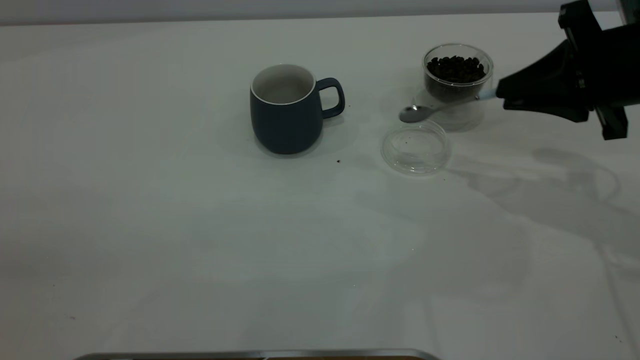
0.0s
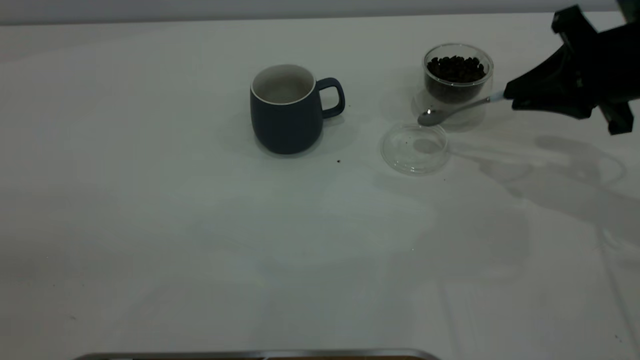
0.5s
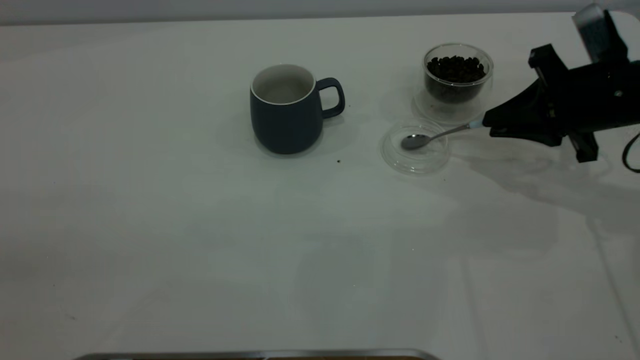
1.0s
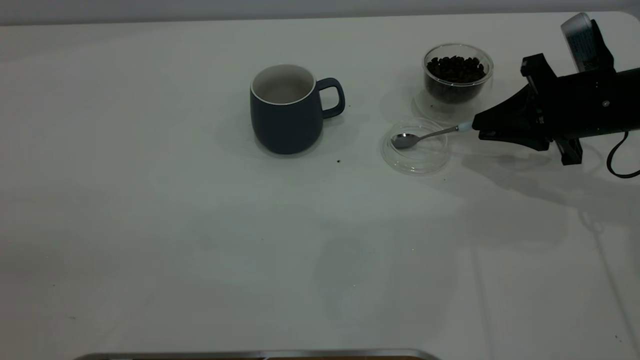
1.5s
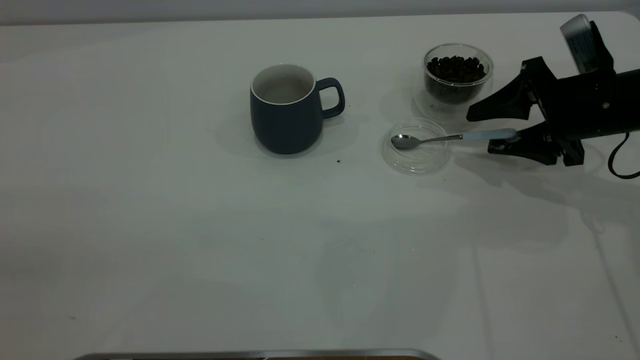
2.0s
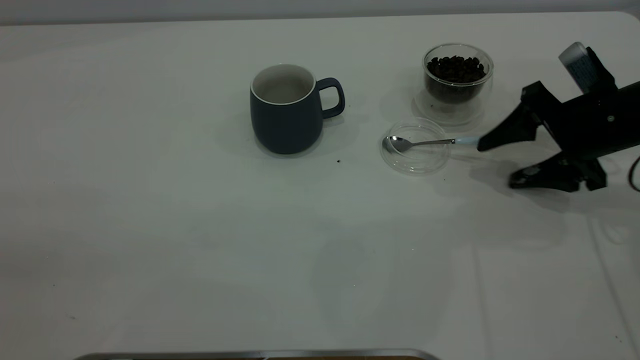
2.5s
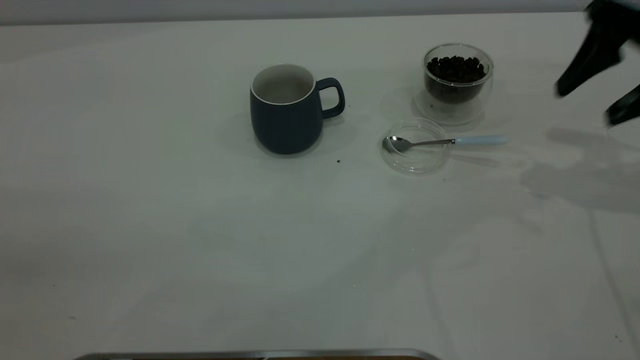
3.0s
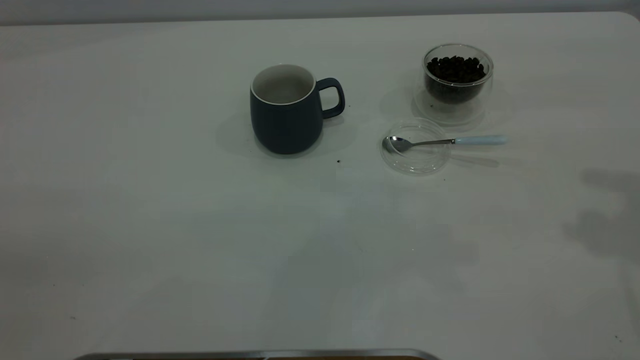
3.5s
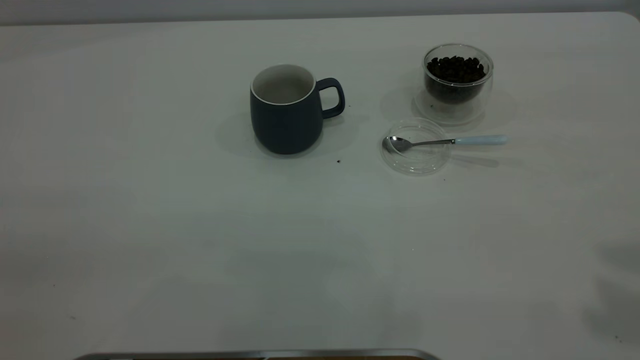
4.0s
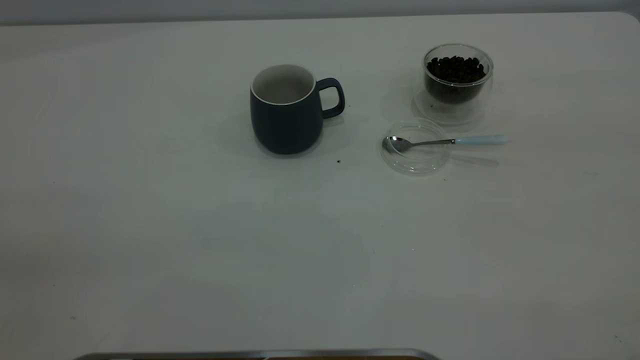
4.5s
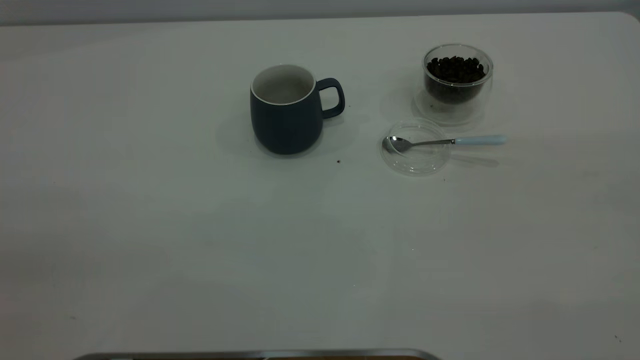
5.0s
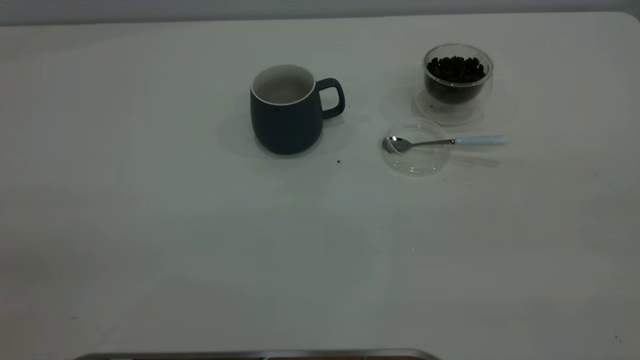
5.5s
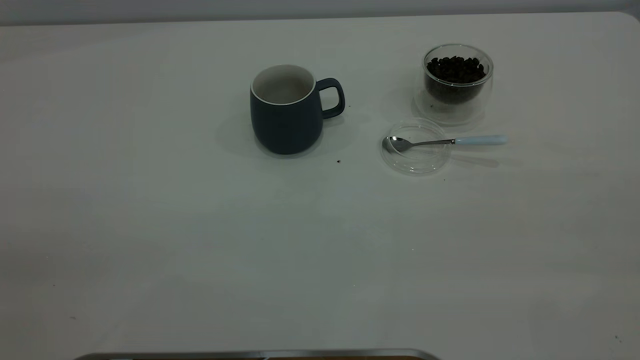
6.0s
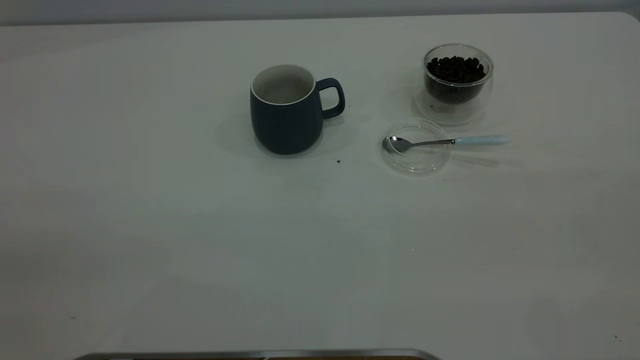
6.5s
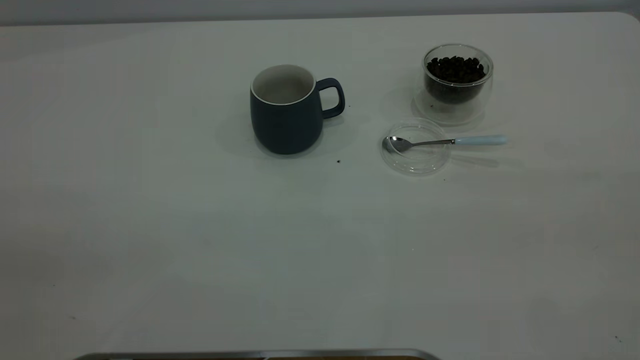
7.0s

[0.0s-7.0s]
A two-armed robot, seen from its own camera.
Task of the whole recording: the left gripper place the grey cup in the center of the table, the right gripper take the blue spoon from the cup lid and scoop out the coffee beans from the coffee cup and put them into the grey cup, the right gripper put the spoon back into the cup lid.
Step, 0.0s to 2.5s: Place the spoon back in its original place.
0.0s to 2.0s: The right gripper is displaced downward by roughly 10 cm, and opens.
2.0s to 3.5s: The right gripper goes approximately 30 cm upward.

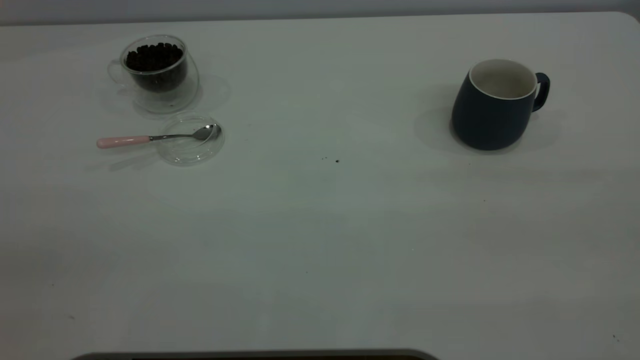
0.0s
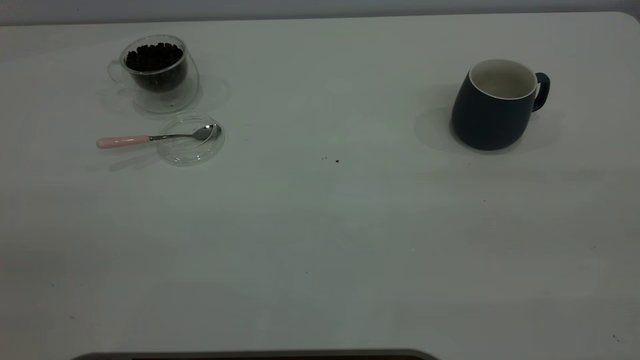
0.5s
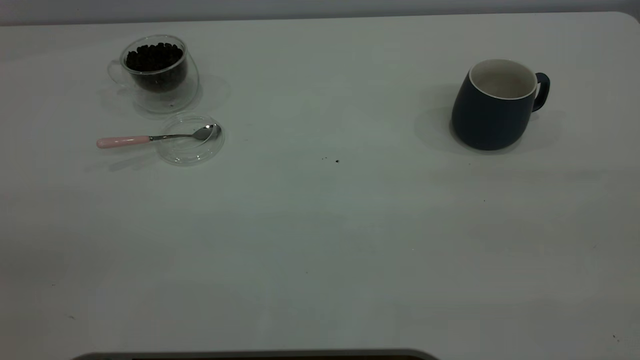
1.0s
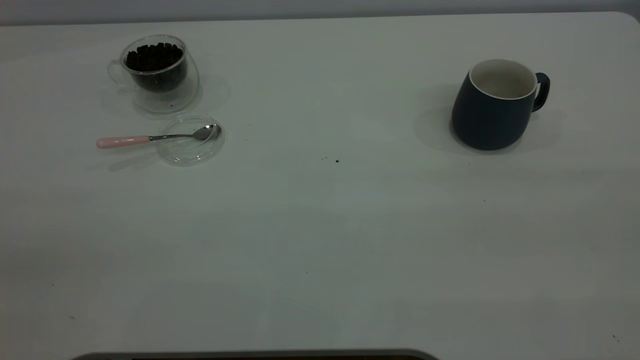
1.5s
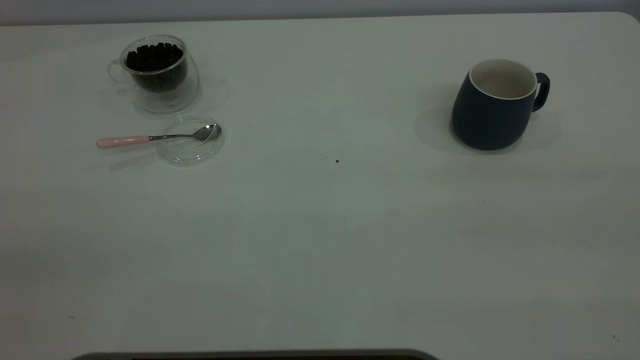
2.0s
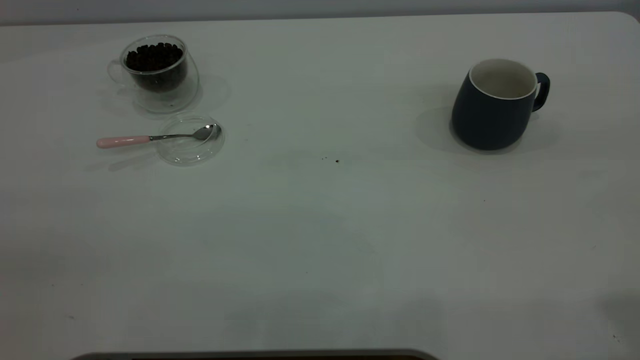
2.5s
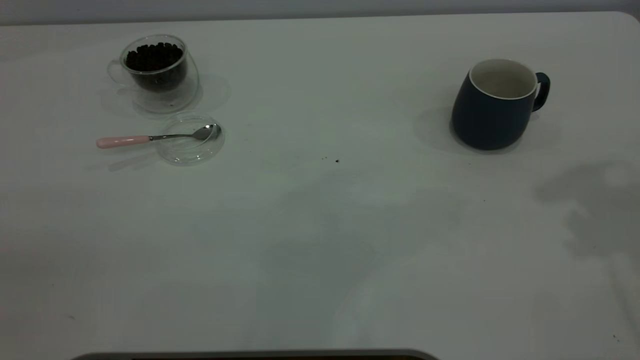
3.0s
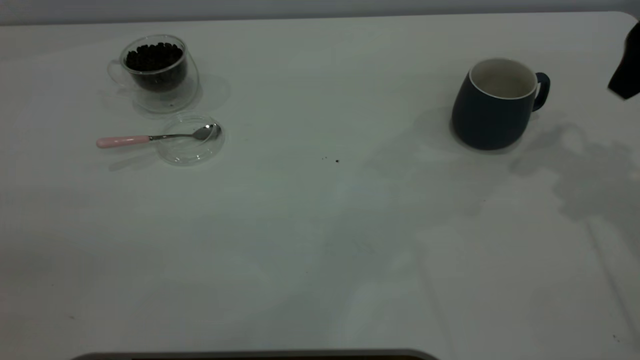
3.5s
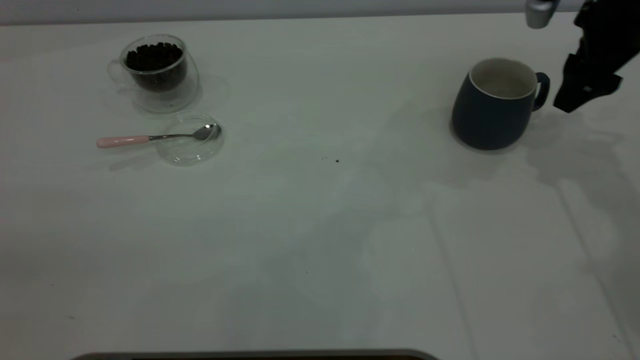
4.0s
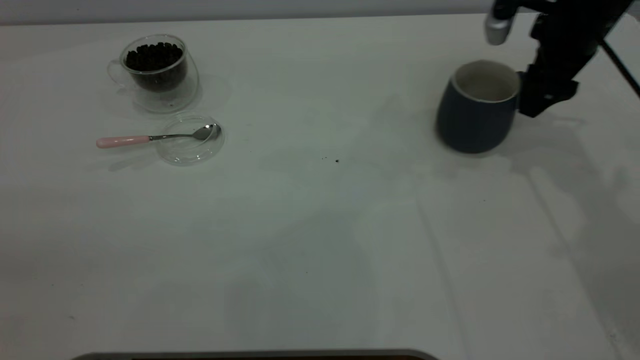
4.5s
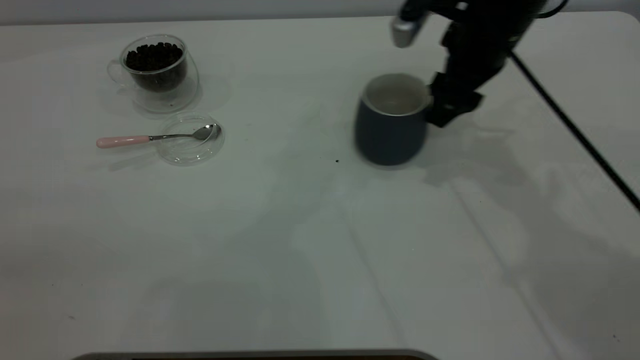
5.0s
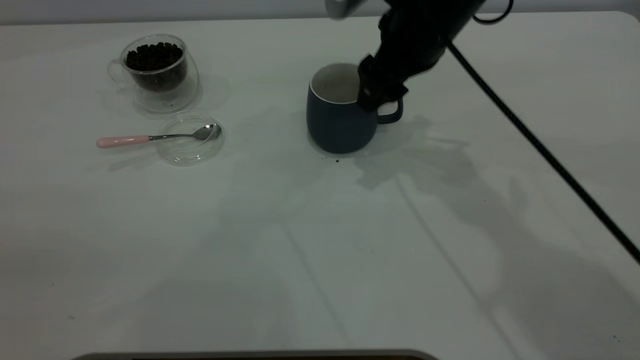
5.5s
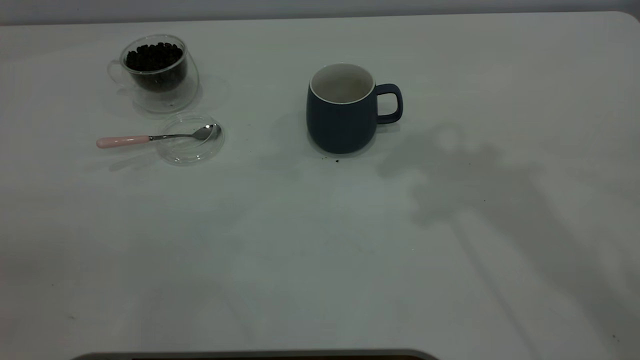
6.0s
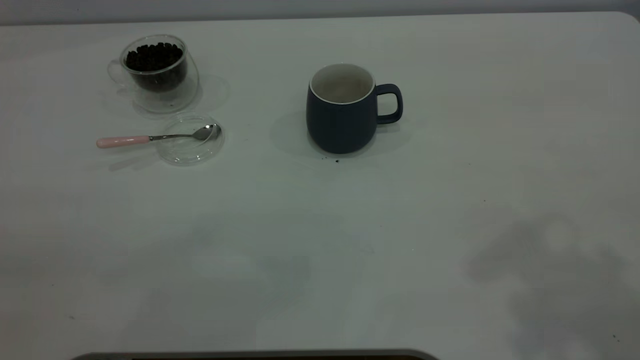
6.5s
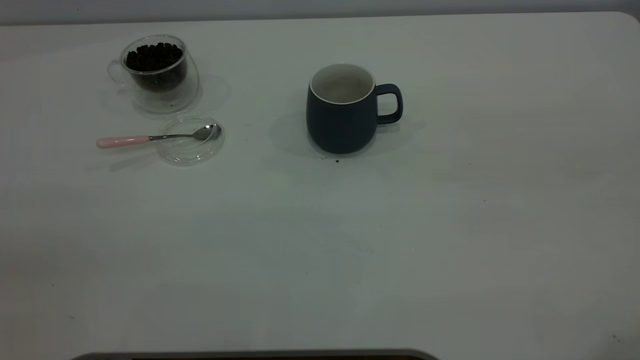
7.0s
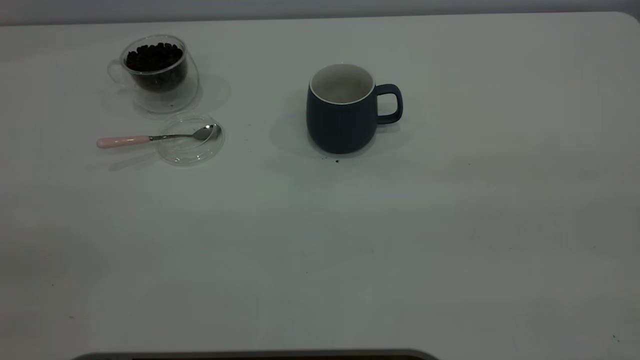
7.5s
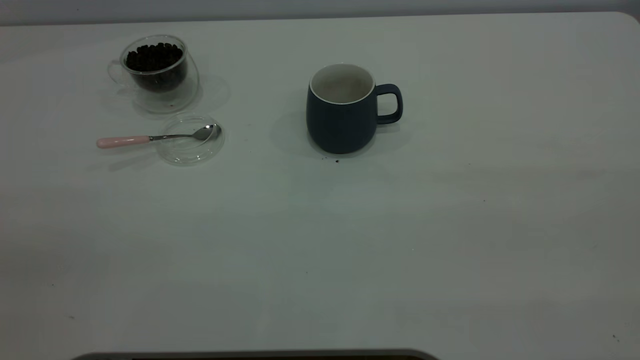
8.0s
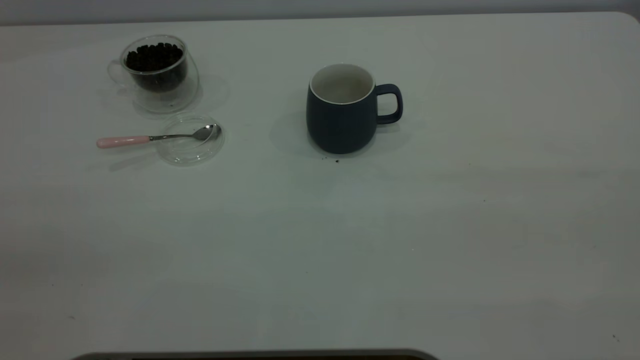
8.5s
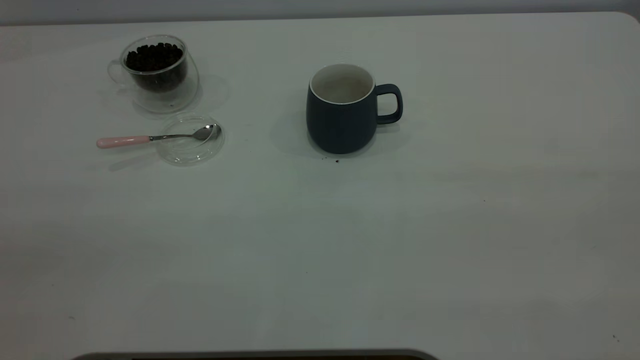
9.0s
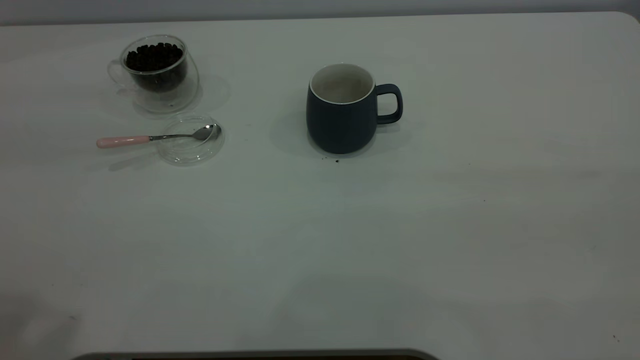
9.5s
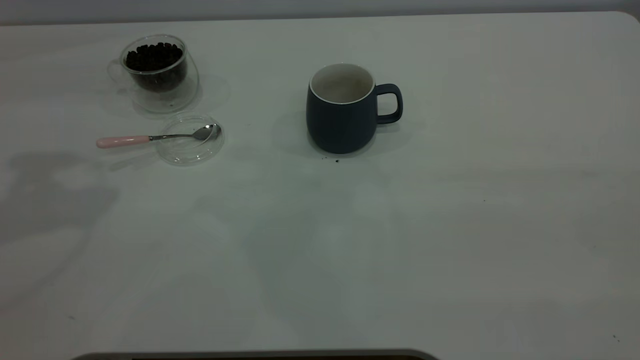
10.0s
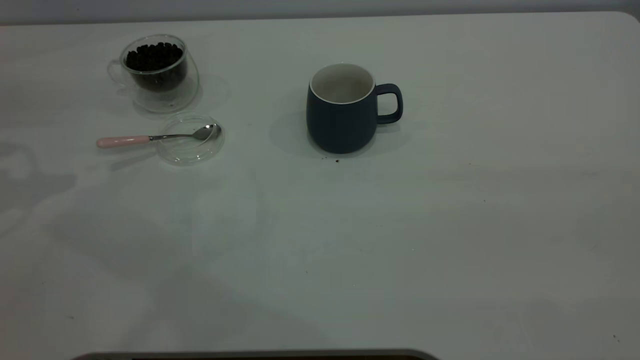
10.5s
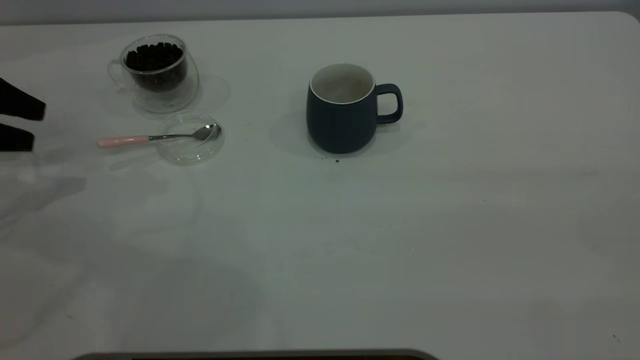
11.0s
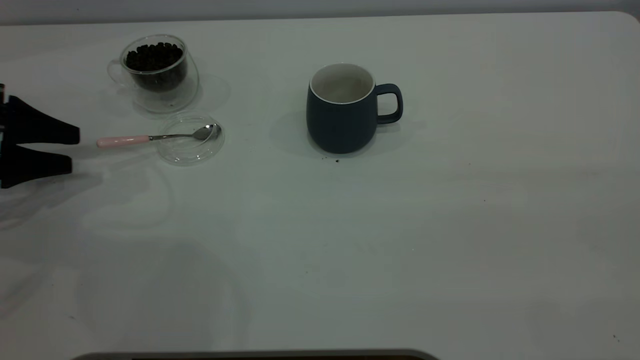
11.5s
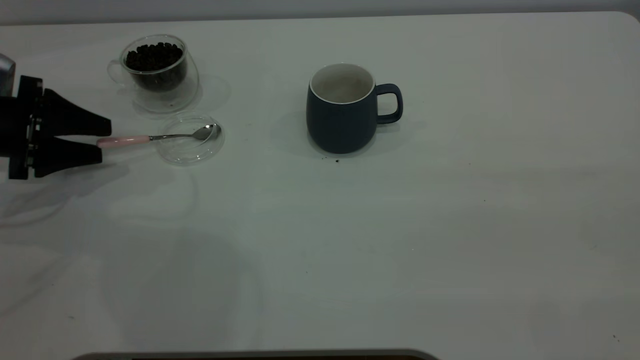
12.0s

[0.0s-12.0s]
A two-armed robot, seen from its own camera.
Task of the whole recording: the right gripper place the grey cup in the center of the table, the left gripper take the pink spoon from the cup lid and scoop out the coffee beans from the coffee cup and put them into the grey cup, the left gripper put the spoon back into the cup lid.
Step, 0.0s to 5.5s: Move the cup to the center of view.
0.0s to 2.0s: Both grippers stay about where they are.
2.0s to 4.0s: The right gripper heads forward and downward, covering about 50 cm, and opens up.
4.0s to 6.0s: The right gripper moves upward and to the left, approximately 25 cm, and closes.
10.0s to 12.0s: The left gripper goes roughly 30 cm downward.

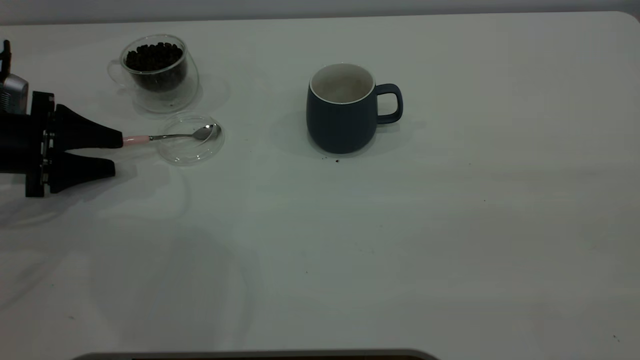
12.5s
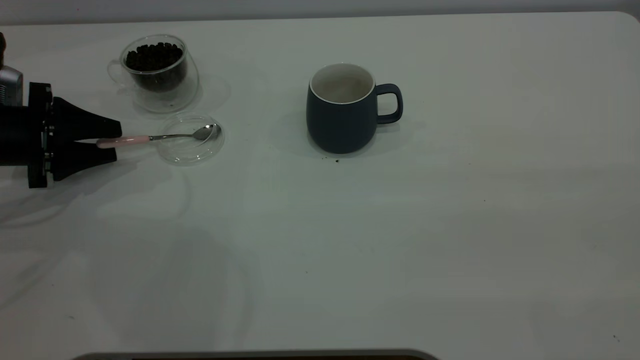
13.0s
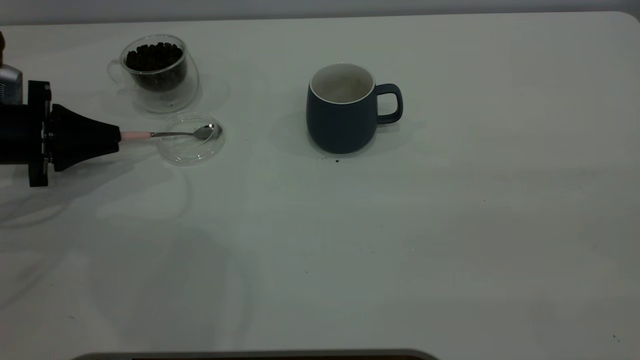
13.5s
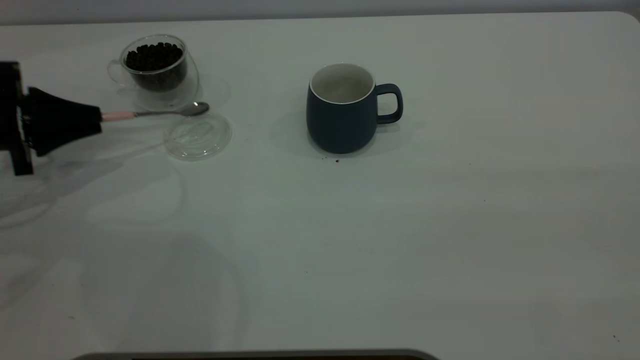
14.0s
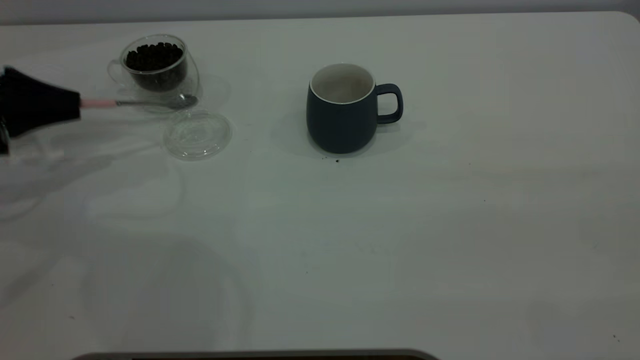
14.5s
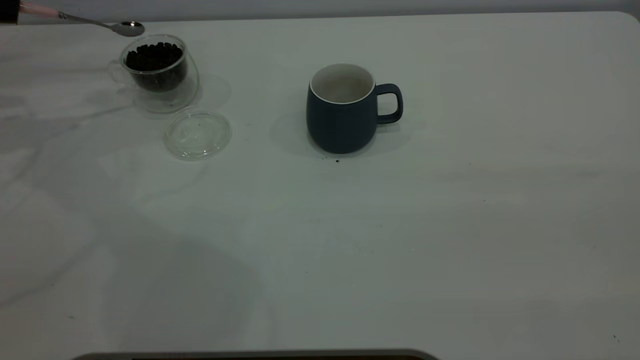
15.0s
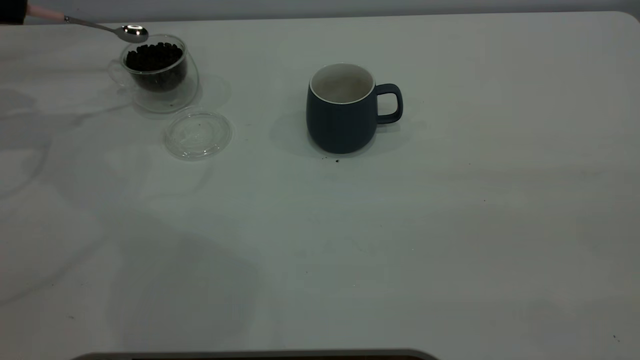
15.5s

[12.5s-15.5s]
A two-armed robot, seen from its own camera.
Task of the whole recording: the right gripper place the grey cup in the center of the table, the left gripper take the pink spoon from the cup lid and scoop out the coffee beans from the coffee cup and put them into the grey cup, the left gripper put the spoon back into the cup lid.
Step, 12.5s to 14.5s: Pick up the spoon.
12.5s to 14.0s: The left gripper closes.
14.0s to 15.5s: The left gripper moves upward, forward and to the left, some 15 cm.
